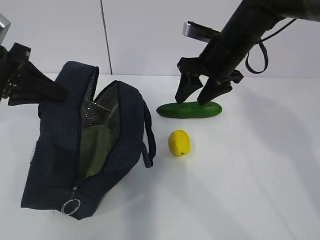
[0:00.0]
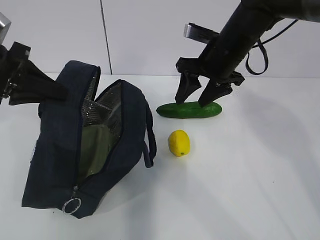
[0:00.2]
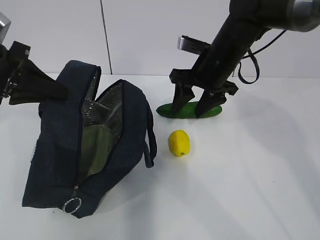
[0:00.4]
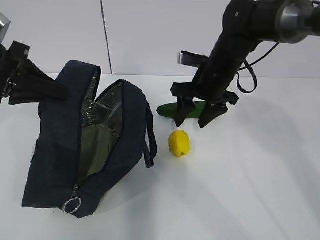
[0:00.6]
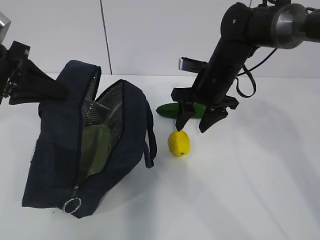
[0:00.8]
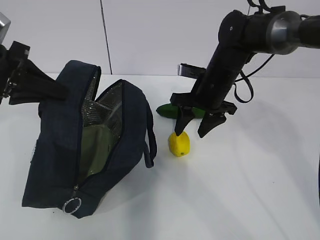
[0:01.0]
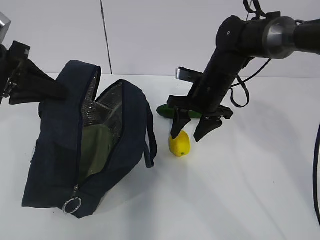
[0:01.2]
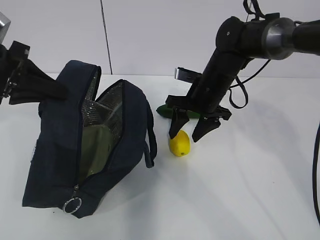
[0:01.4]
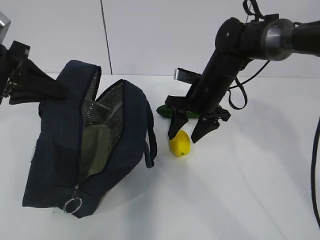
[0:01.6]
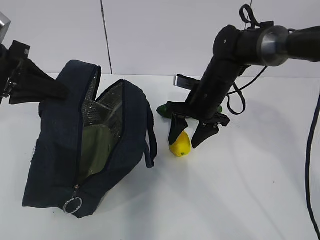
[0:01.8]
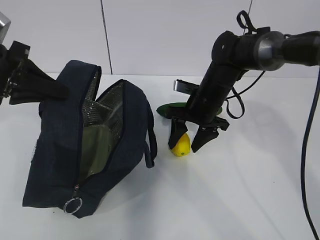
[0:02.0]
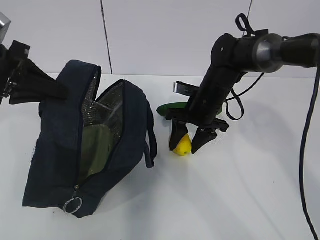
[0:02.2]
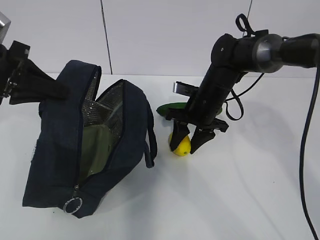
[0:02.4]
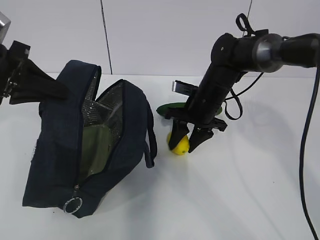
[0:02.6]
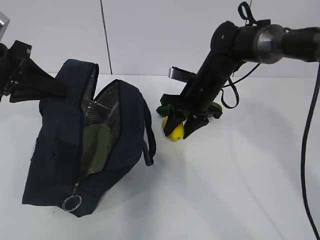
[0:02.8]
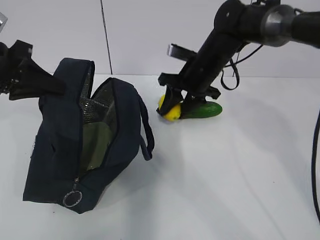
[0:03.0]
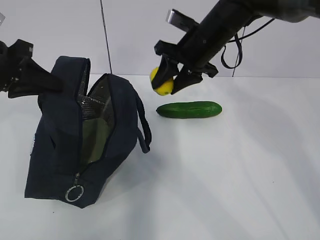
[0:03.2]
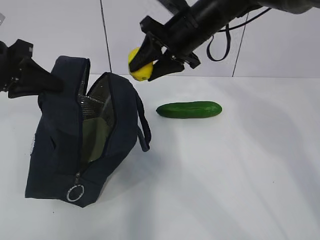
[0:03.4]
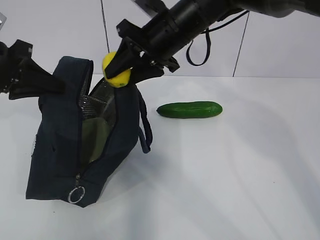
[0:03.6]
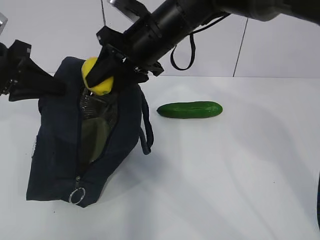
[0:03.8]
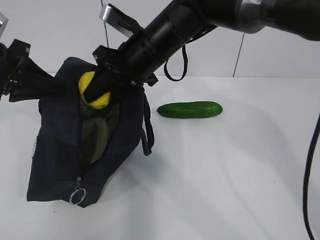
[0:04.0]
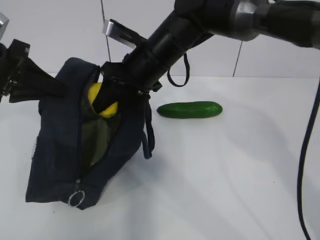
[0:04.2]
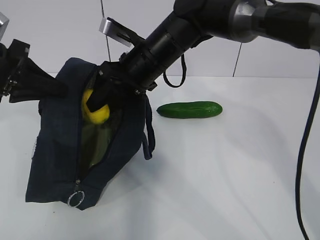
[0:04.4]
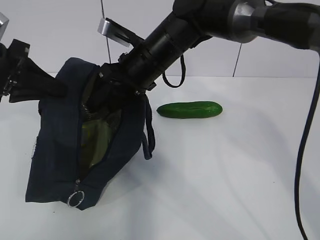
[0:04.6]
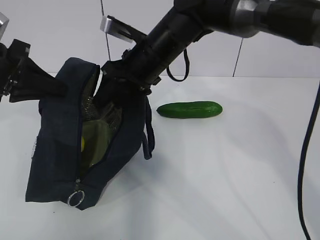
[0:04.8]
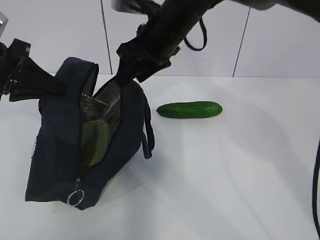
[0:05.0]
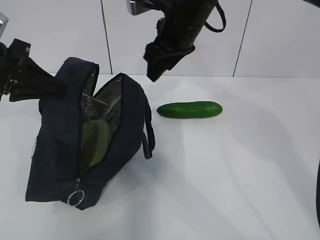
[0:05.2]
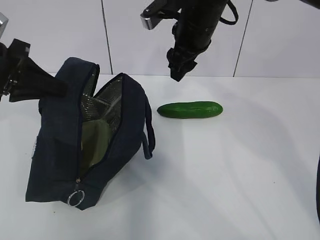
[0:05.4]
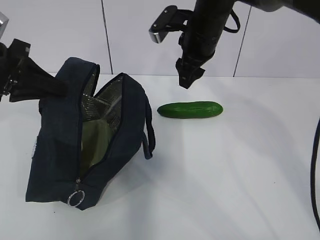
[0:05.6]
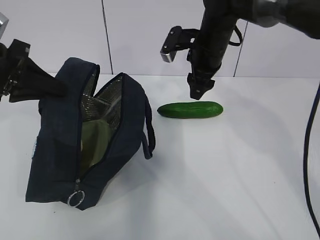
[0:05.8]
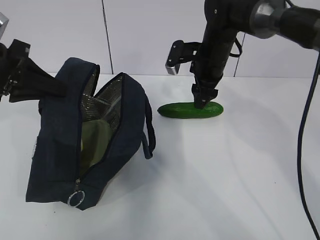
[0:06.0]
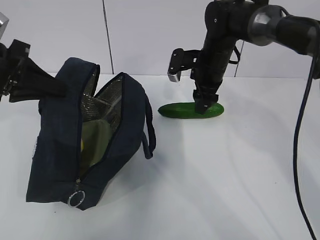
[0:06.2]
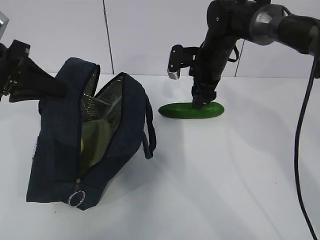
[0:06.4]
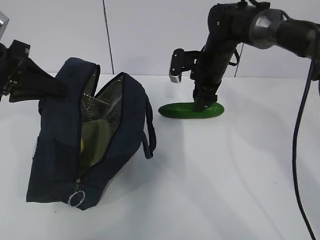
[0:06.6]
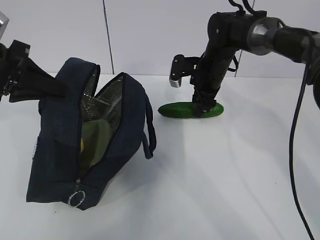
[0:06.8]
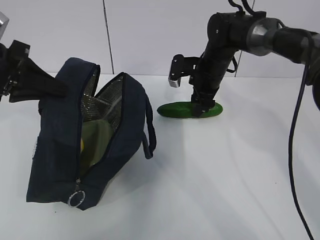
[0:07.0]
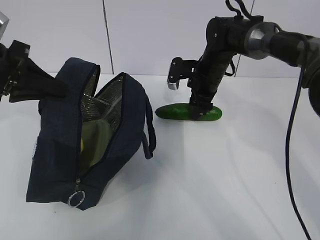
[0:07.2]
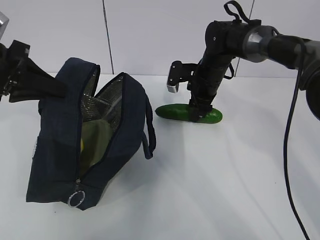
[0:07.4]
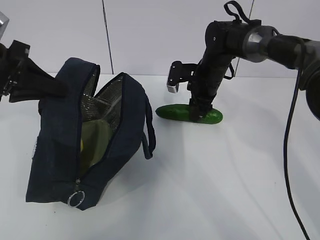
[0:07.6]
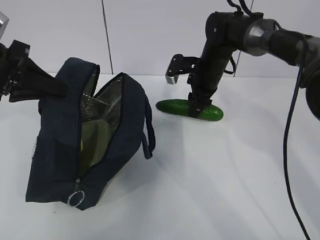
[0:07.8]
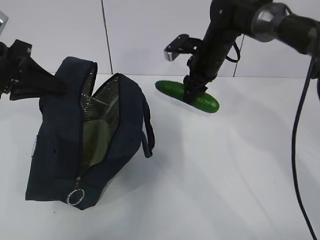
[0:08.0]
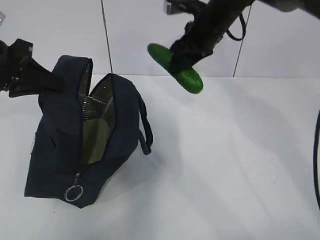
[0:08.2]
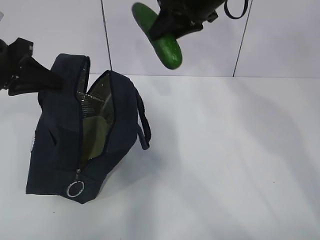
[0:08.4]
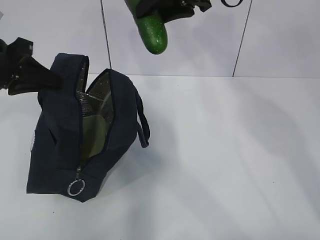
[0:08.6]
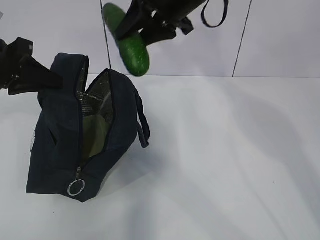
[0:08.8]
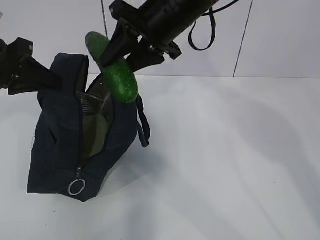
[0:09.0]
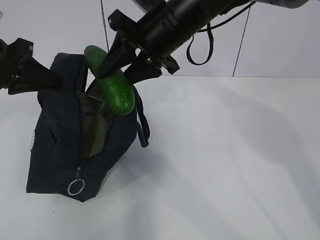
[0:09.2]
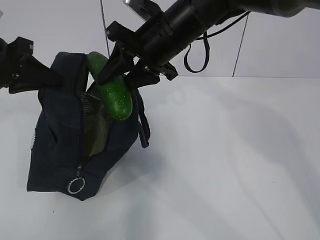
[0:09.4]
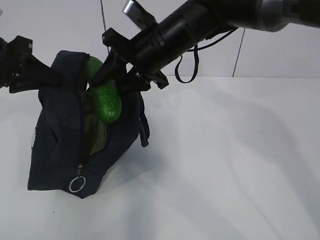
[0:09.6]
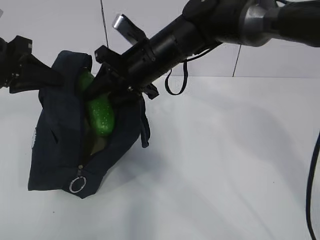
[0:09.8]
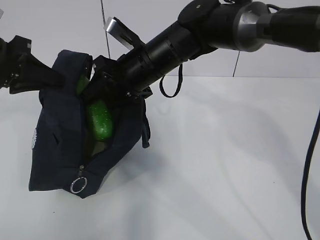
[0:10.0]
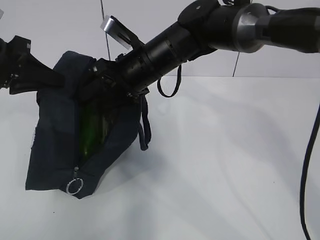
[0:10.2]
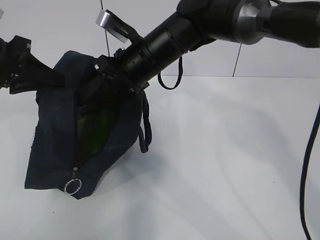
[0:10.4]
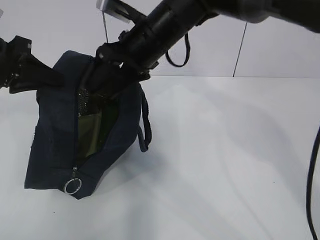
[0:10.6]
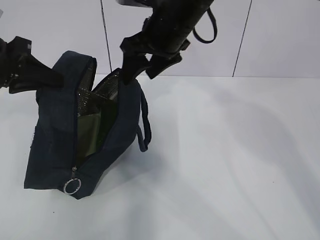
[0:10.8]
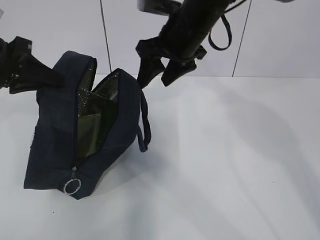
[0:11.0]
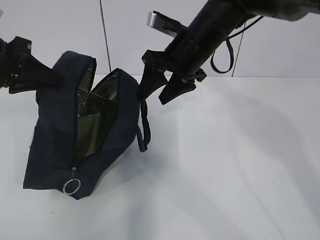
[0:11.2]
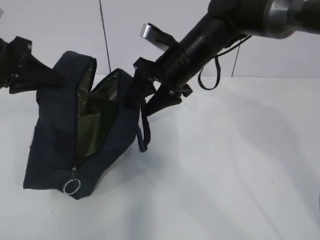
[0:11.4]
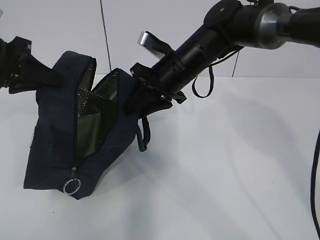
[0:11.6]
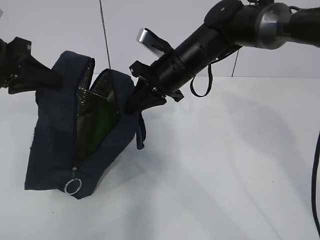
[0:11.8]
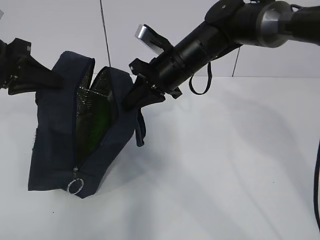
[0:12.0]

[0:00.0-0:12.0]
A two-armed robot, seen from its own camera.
Step, 0:00.0 to 0:02.4: Grasp the lemon with the right gripper.
Step, 0:02.6 to 0:04.8: Place the lemon into the package with the right gripper.
Step, 0:05.0 to 0:07.4: Grasp the cucumber with the right gripper.
Step, 0:07.8 to 0:10.6: Place the cucumber into the package with the right gripper.
0:00.0 to 0:01.6: The right gripper is displaced downward by roughly 10 cm.
0:01.6 to 0:03.0: The grippers move only a little.
0:03.0 to 0:04.4: The right gripper moves to the left, upward and backward, roughly 10 cm.
0:04.4 to 0:06.0: The right gripper is displaced to the right and forward by approximately 15 cm.
0:06.0 to 0:07.6: The right gripper shifts about 5 cm downward.
0:07.6 to 0:09.0: The right gripper is displaced upward, backward and to the left by some 20 cm.
0:09.0 to 0:10.4: The right gripper shifts approximately 5 cm downward, and opens.
0:10.4 to 0:12.0: The right gripper is displaced to the right by about 5 cm, reaches roughly 5 cm upward, then returns, and closes.

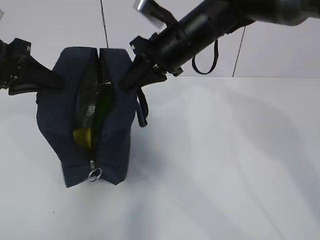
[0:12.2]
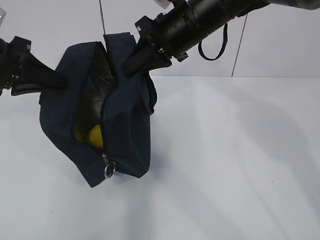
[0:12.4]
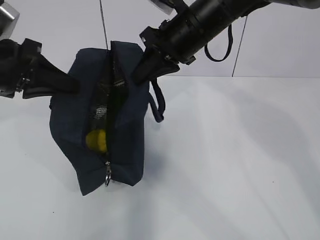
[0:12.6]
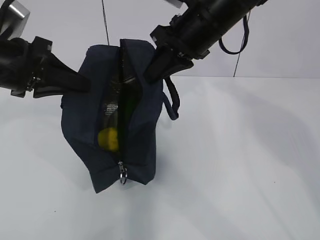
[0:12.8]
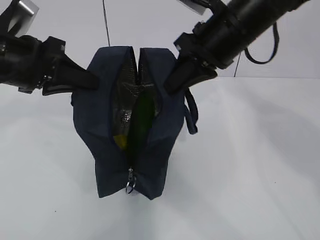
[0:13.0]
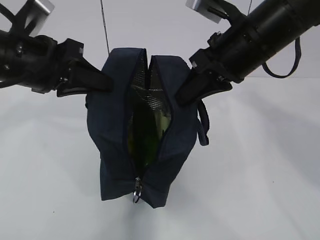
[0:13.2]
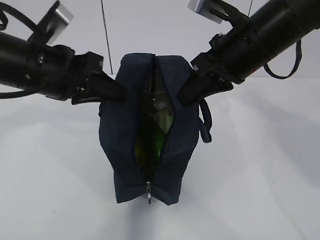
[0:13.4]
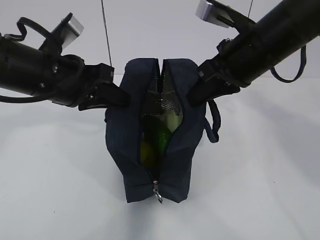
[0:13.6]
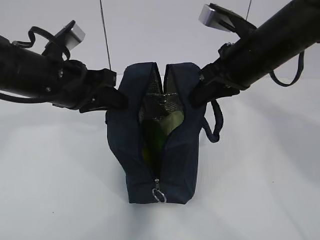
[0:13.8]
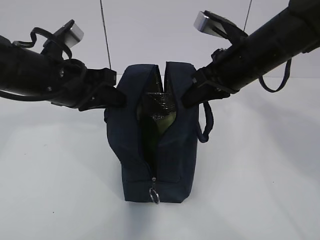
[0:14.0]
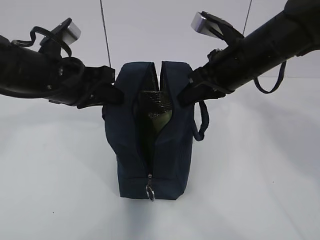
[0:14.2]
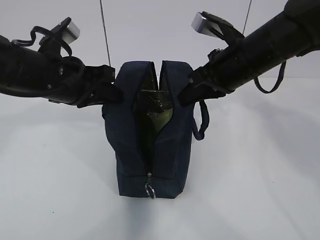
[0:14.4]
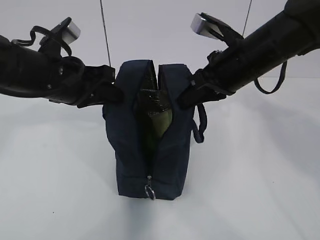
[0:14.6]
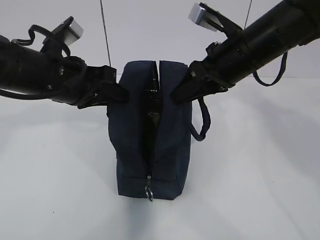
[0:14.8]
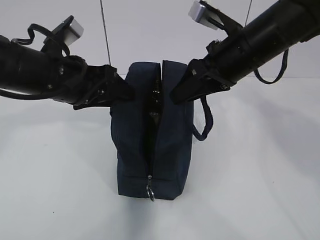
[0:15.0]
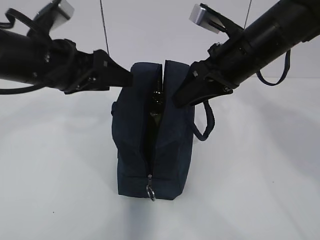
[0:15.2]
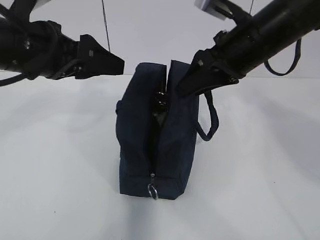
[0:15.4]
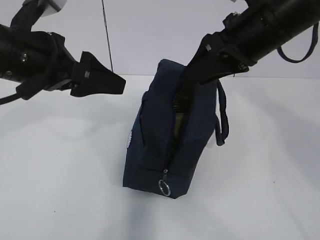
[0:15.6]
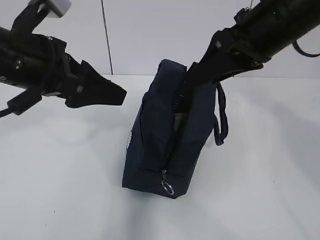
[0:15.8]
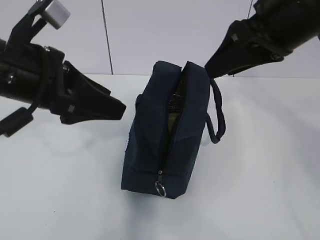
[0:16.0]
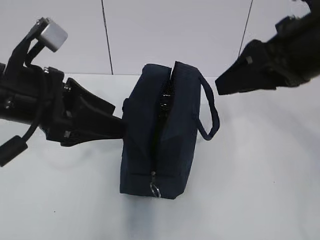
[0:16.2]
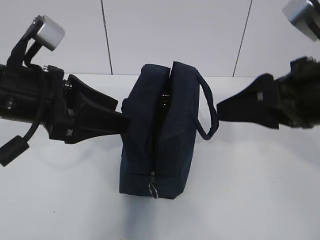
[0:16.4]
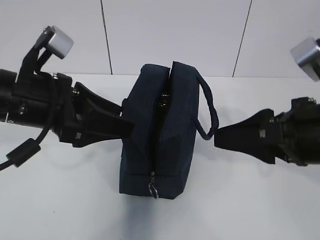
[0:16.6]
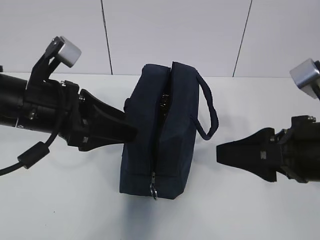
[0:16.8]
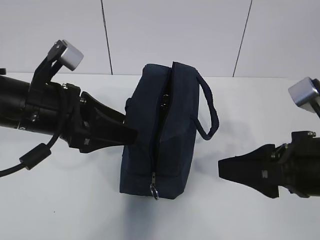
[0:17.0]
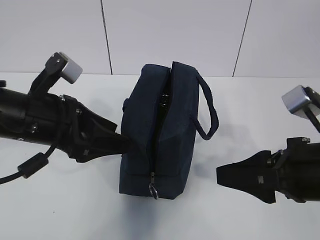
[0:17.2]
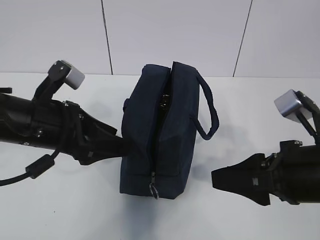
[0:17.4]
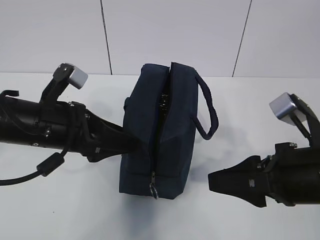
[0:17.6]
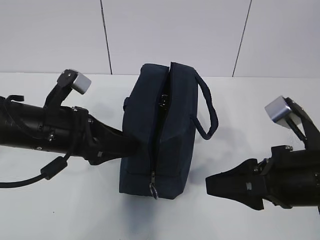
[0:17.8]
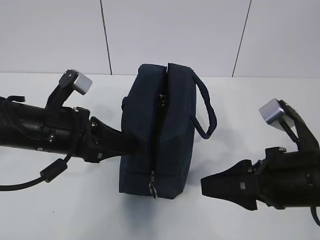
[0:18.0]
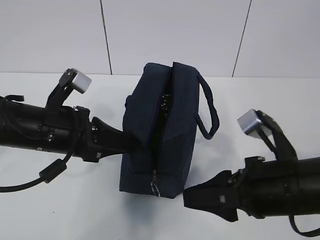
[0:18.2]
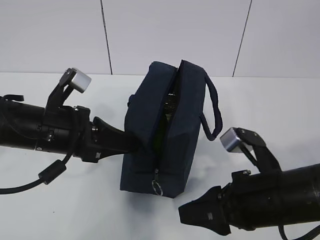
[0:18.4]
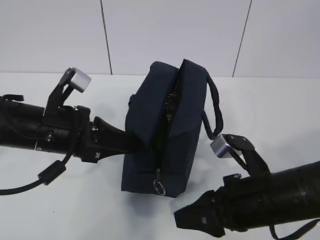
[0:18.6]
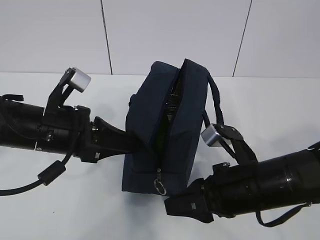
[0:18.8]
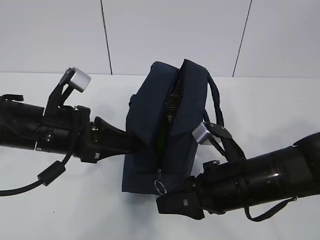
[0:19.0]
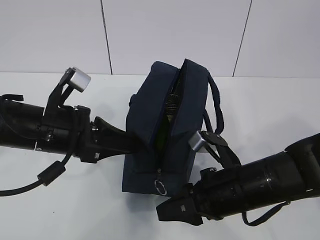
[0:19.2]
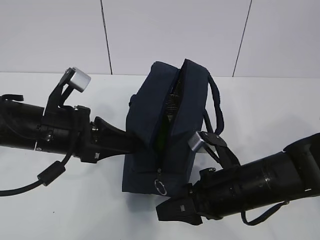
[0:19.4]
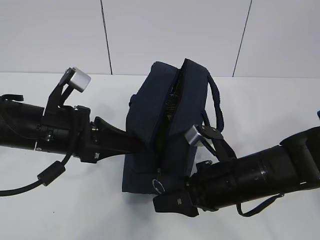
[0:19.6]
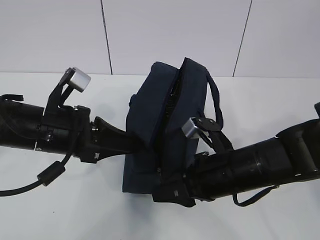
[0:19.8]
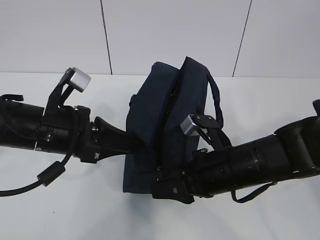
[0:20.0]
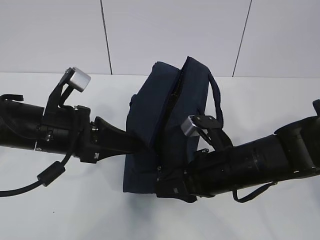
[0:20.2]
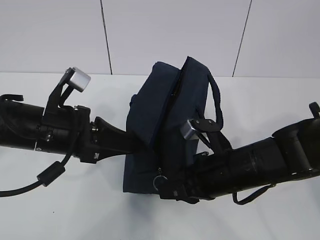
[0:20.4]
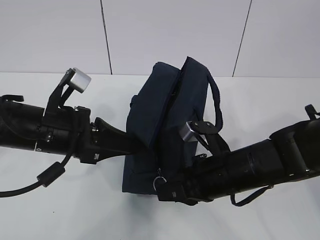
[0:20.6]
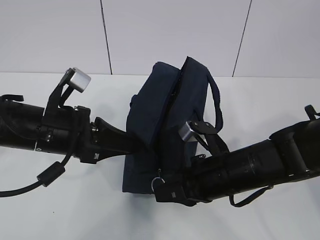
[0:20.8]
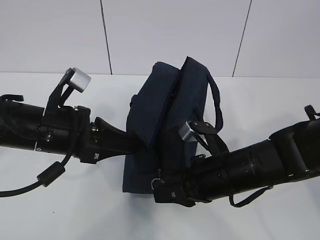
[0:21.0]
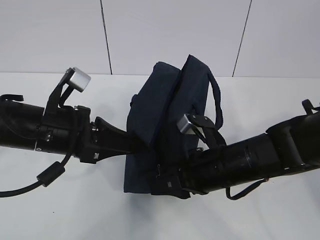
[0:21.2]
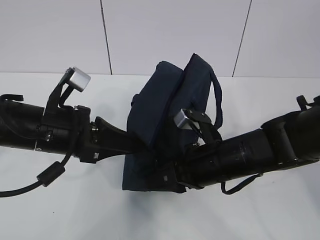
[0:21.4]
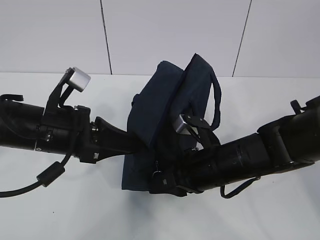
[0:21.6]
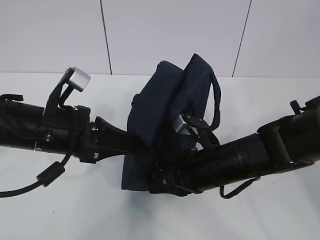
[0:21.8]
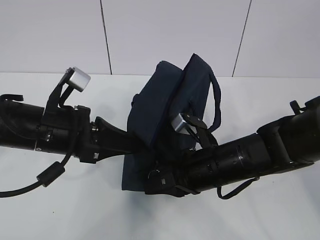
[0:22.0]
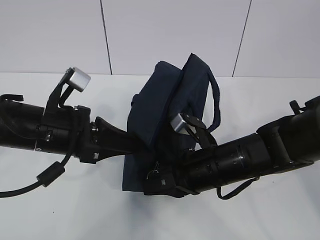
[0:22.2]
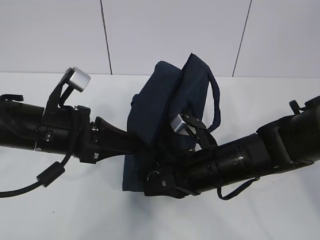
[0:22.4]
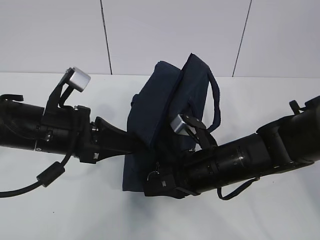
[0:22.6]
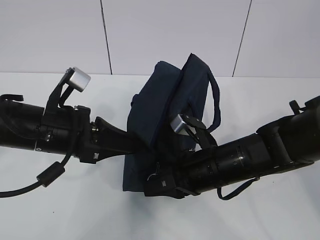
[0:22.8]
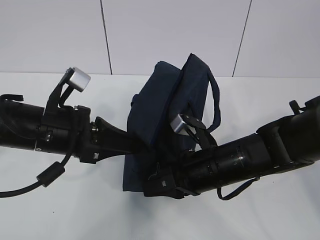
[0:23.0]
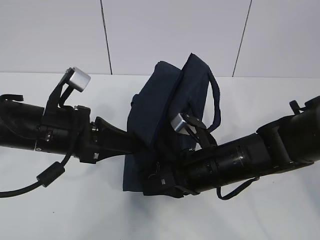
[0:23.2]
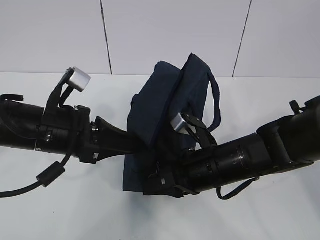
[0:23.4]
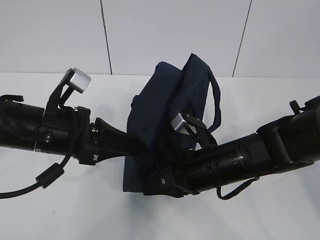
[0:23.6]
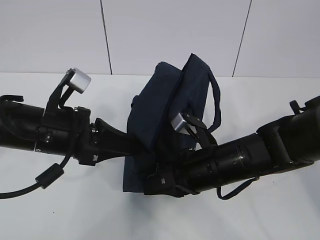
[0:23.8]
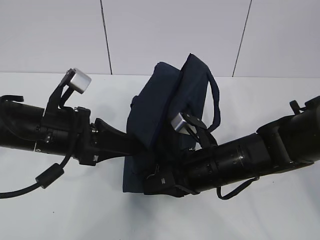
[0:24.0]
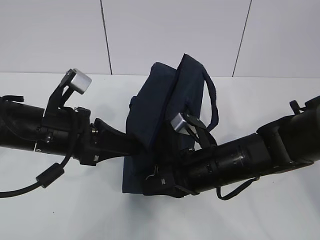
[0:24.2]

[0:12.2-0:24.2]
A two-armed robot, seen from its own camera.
0:12.2 to 0:13.8: The right gripper is displaced to the right and backward by roughly 10 cm, while the left gripper heads to the right, covering some 10 cm.
0:13.8 to 0:15.2: The left gripper opens its fingers, while the right gripper opens its fingers.
0:15.2 to 0:16.6: The left gripper travels backward by approximately 5 cm, while the right gripper moves backward, some 15 cm.
0:16.6 to 0:18.2: Both grippers travel together downward, some 5 cm. The left gripper closes up.
0:18.2 to 0:19.8: The right gripper is displaced forward and downward by roughly 10 cm.
0:19.8 to 0:21.2: The right gripper closes, then reopens.
0:21.2 to 0:22.6: The right gripper closes its fingers.
0:22.6 to 0:24.2: The two grippers keep their place.
